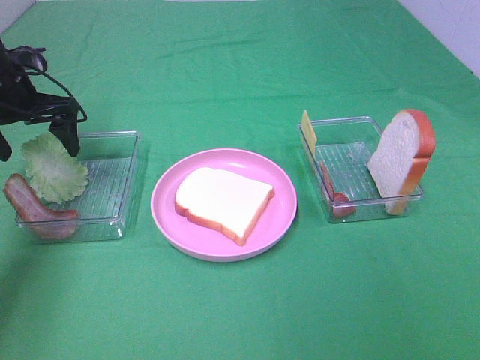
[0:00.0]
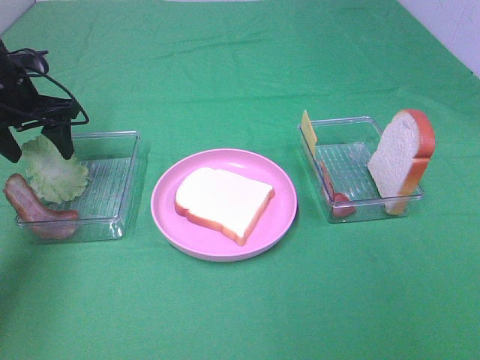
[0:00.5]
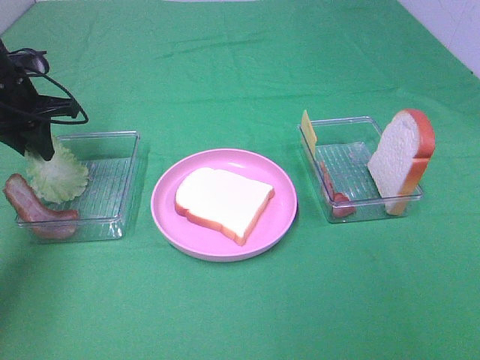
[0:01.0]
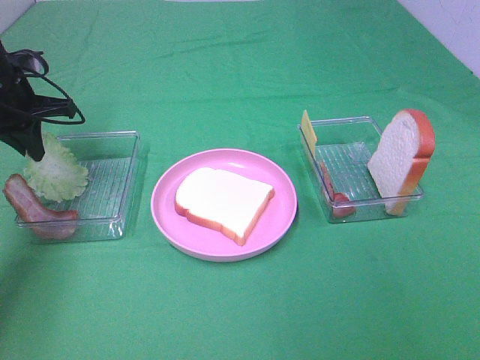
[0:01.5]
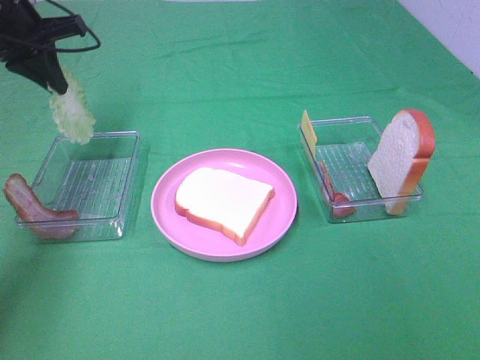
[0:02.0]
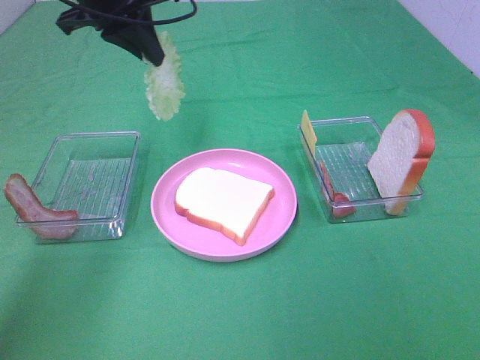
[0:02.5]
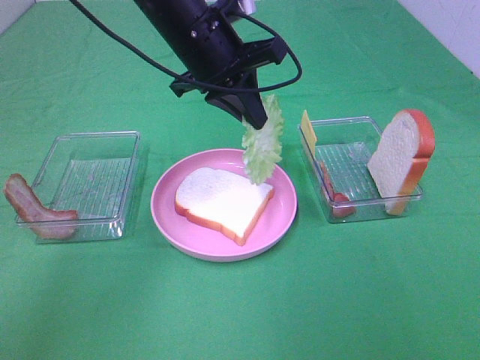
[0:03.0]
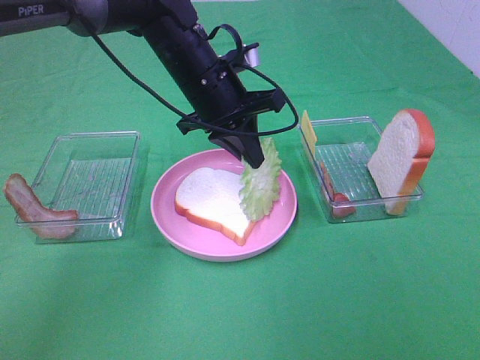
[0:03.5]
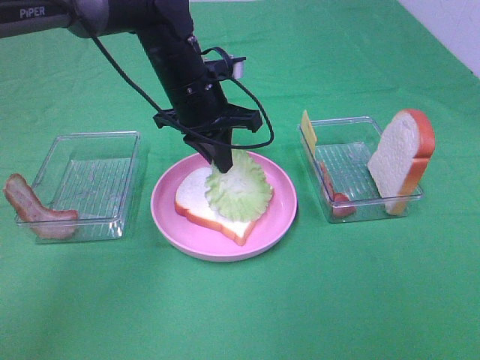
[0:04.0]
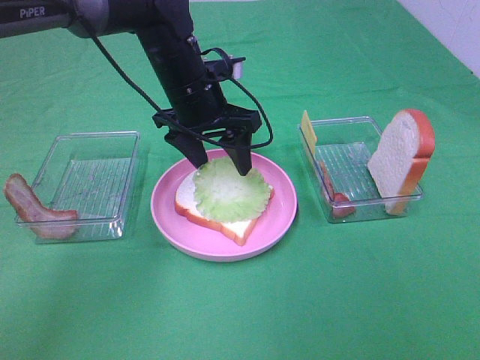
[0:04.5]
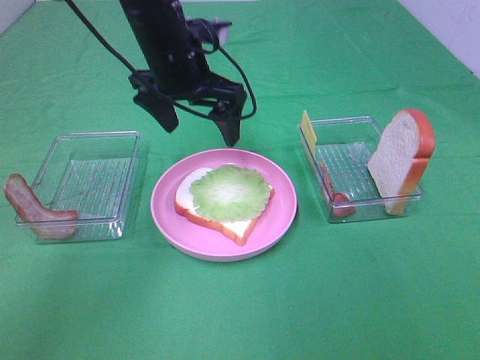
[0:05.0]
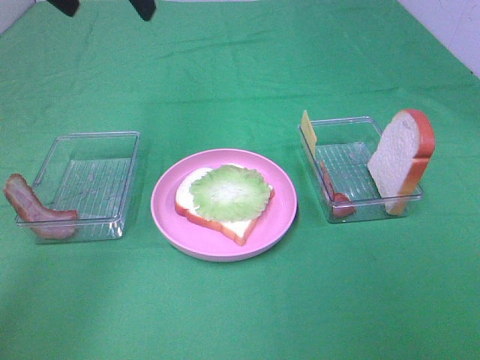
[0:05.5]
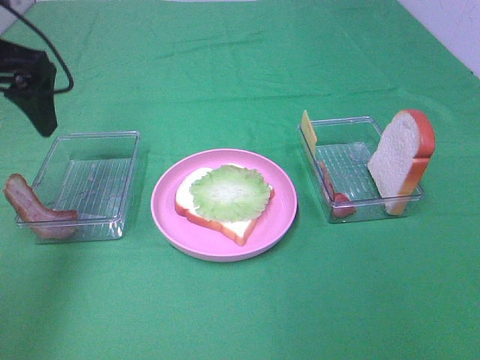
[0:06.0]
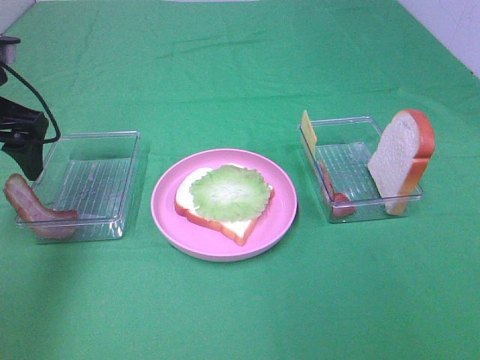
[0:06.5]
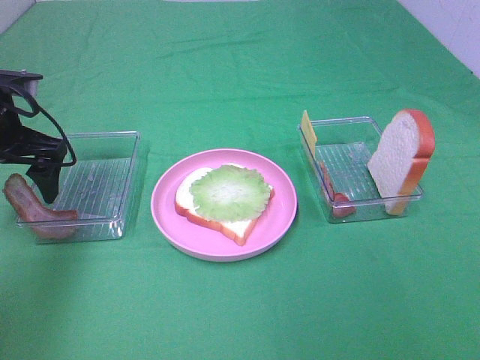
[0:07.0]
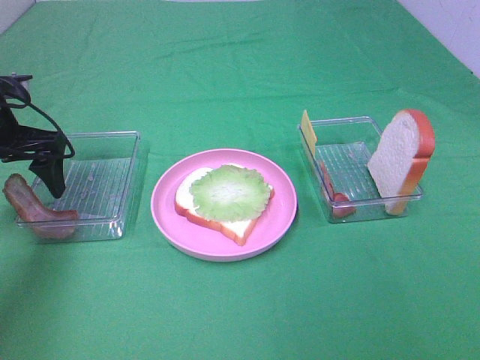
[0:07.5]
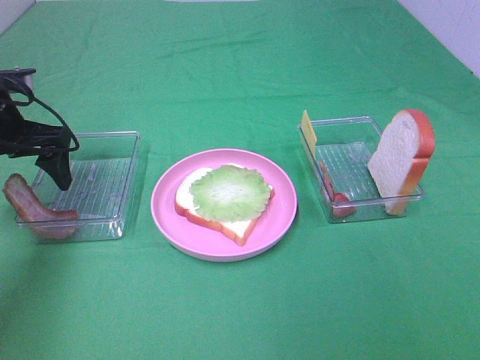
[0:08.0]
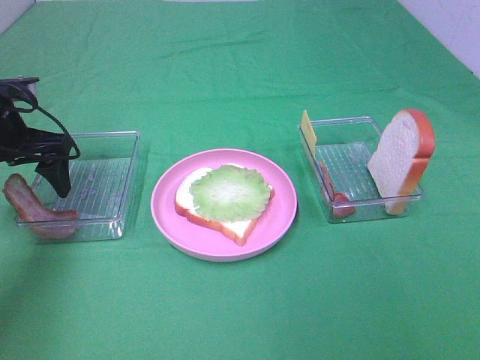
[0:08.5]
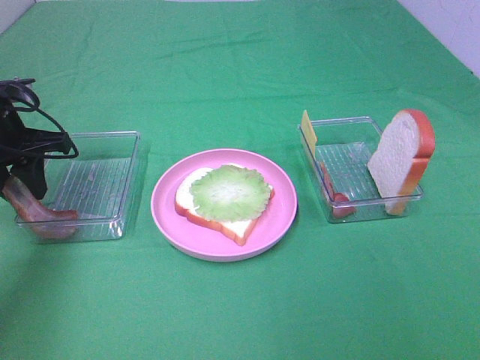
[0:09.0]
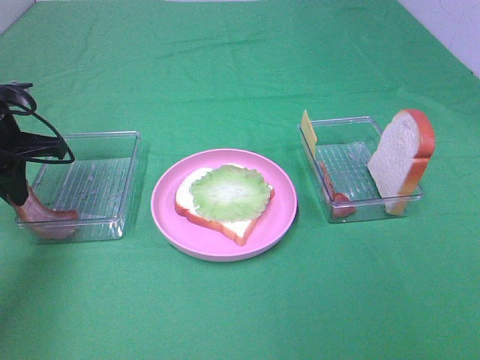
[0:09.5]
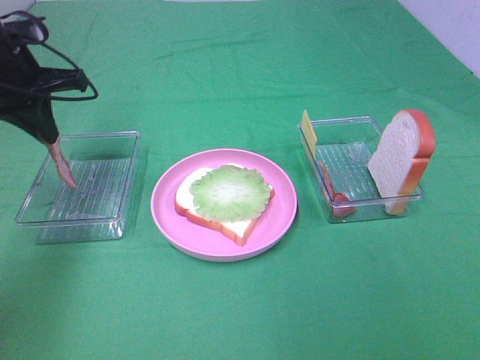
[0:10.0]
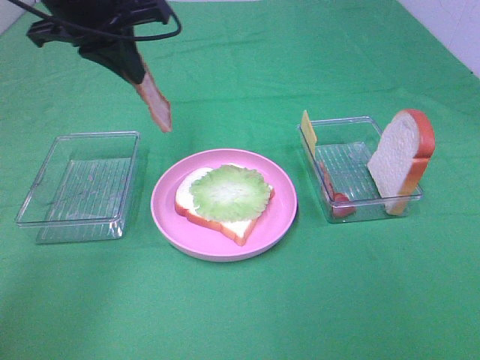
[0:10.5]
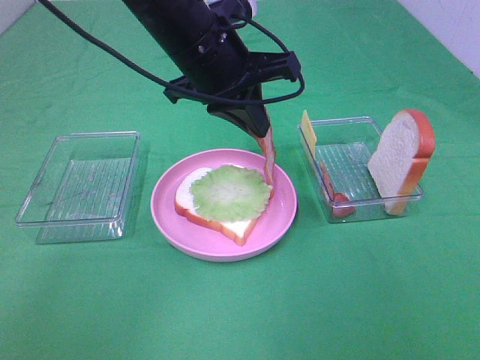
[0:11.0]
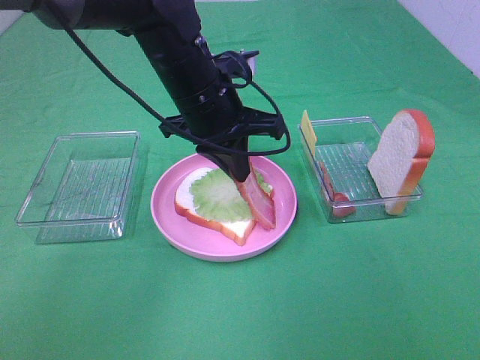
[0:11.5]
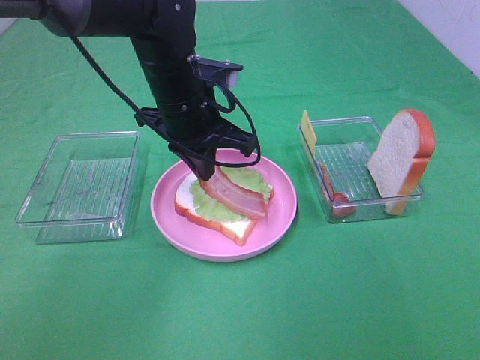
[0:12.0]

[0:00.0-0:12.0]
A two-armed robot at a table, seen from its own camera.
Task of the whole recording: Make sandwiches.
Step, 0:01.5 to 0:04.5: Left hand:place the lettuce slice on the bread slice.
Step, 0:05.0 to 0:09.5: Left hand:grab the bacon.
0:00.0 to 0:02.0: The left gripper travels upward by about 10 cm, and closes.
0:02.0 to 0:04.0: The left gripper heads to the right and downward, covering about 25 cm.
0:04.0 to 0:06.0: The left gripper goes approximately 25 cm to the left, upward and backward, and opens its fingers.
0:06.0 to 0:08.0: The left gripper goes some 10 cm downward.
0:08.0 to 0:10.0: The left gripper is displaced upward by approximately 5 cm, and closes up.
0:10.0 to 0:12.0: The left gripper shifts approximately 20 cm to the right.

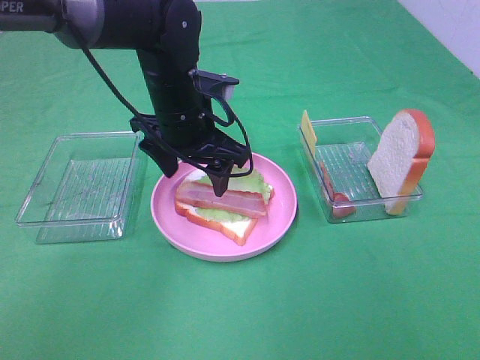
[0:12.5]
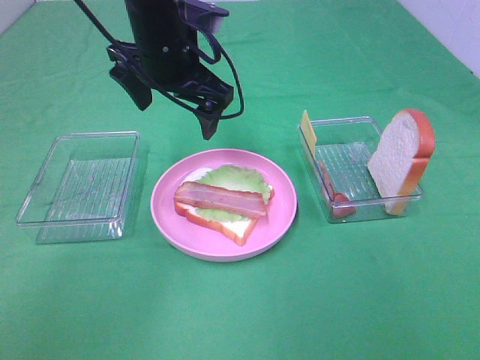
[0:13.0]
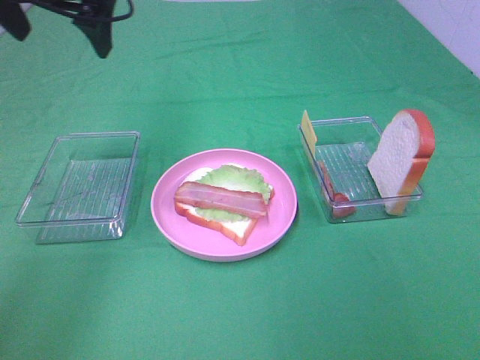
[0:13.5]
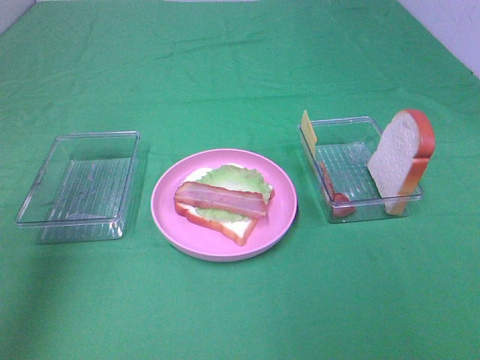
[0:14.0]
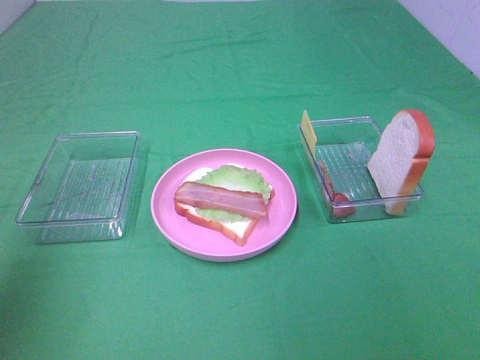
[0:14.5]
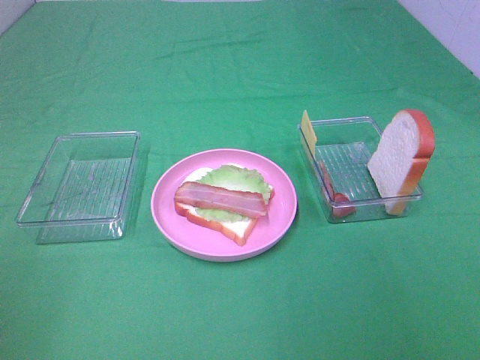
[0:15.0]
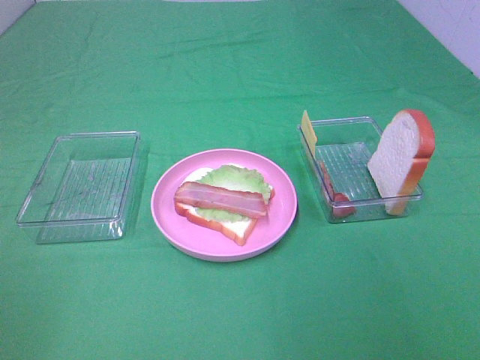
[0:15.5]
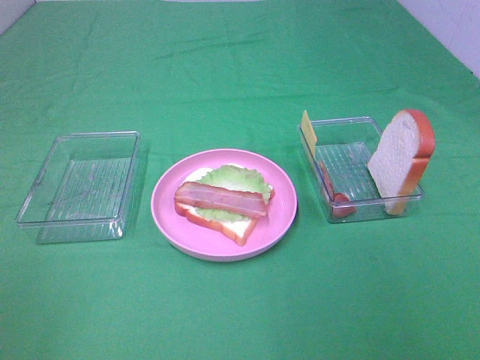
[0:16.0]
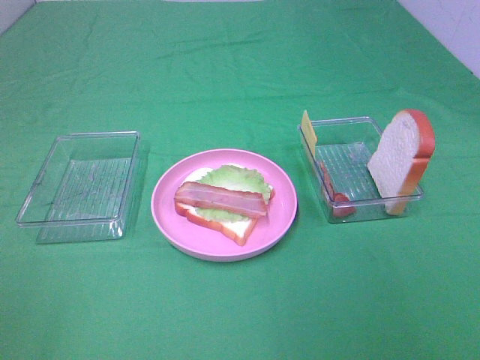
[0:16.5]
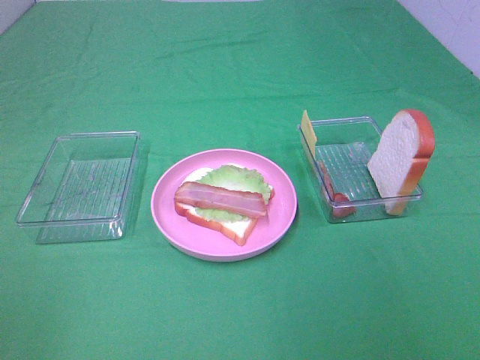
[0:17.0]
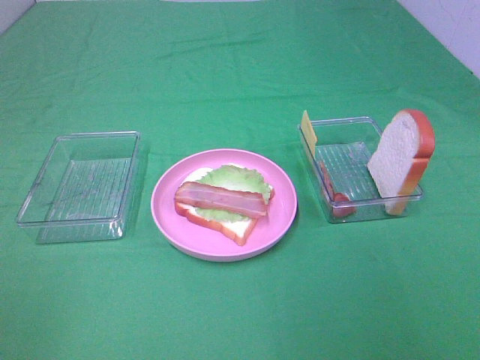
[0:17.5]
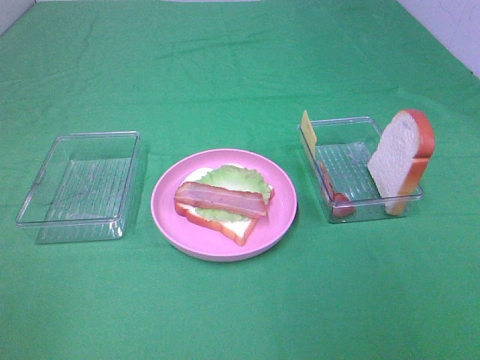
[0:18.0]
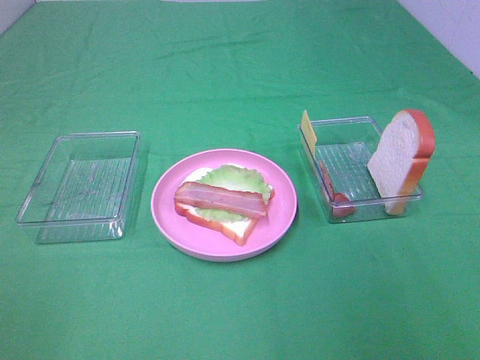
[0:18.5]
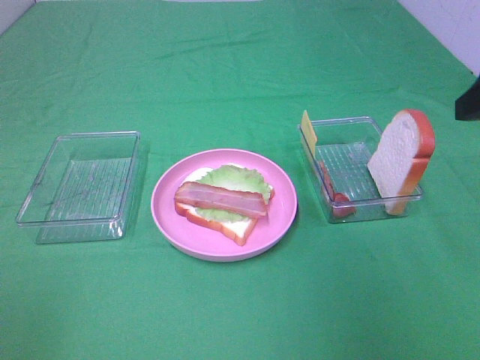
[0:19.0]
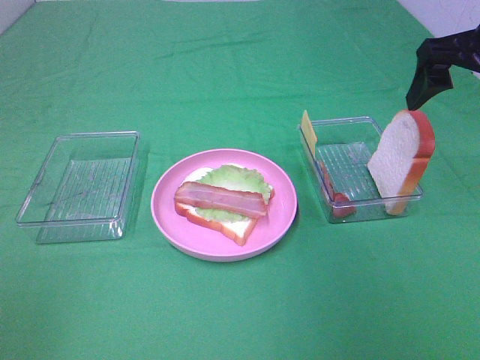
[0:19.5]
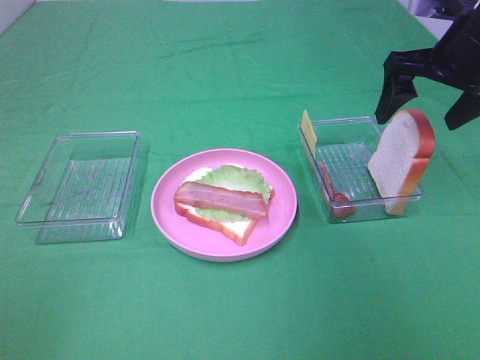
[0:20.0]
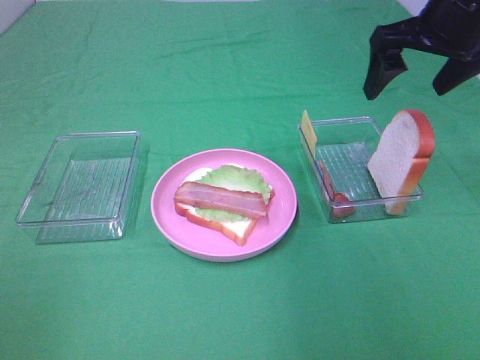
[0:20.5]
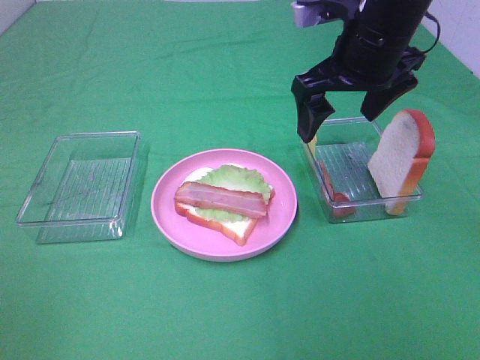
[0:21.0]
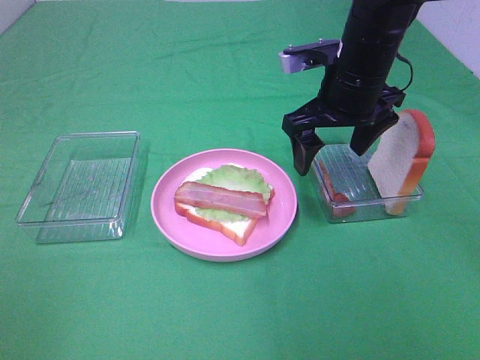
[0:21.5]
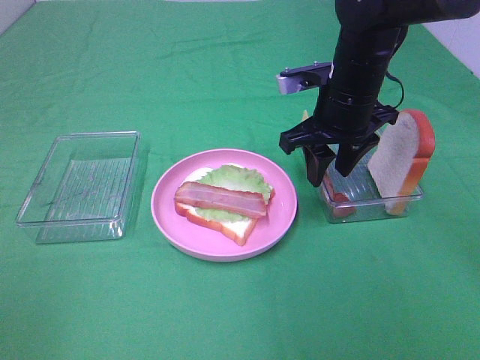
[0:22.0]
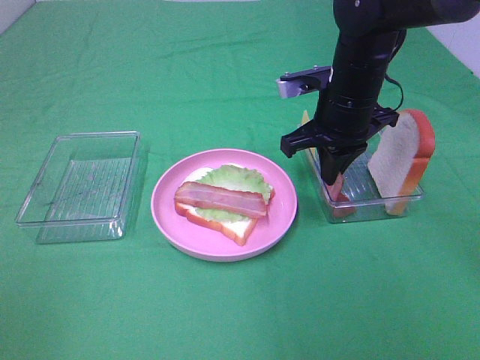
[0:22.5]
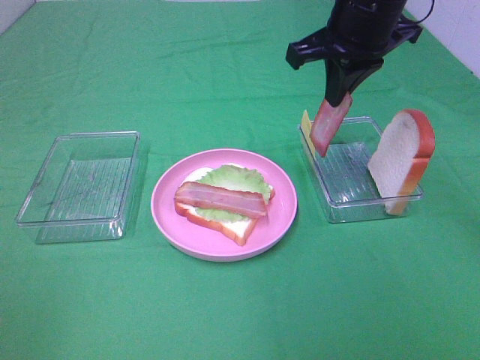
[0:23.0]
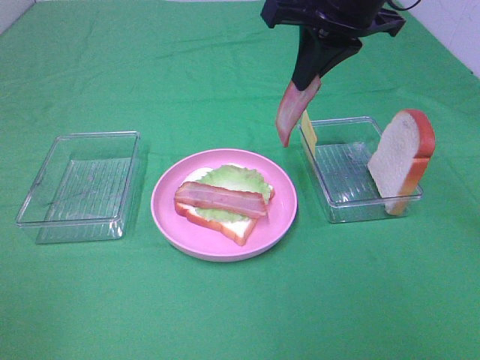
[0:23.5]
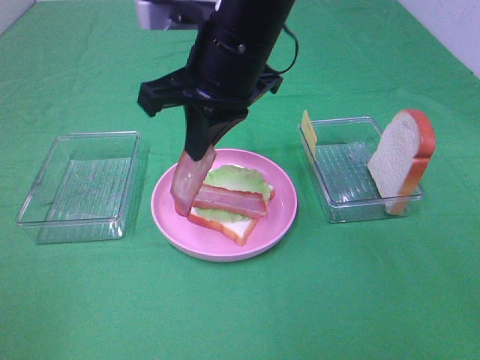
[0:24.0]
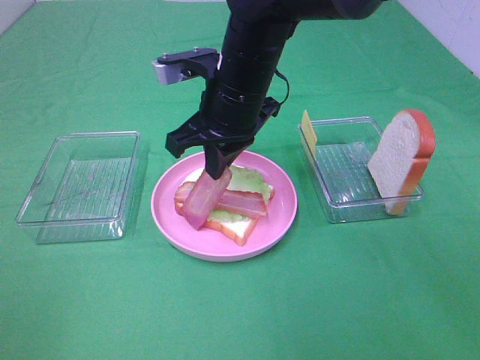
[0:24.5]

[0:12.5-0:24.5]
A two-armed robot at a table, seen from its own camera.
Task of the whole recording: Make sandwiches.
Step, 0:13.0 to 0:22.5: Right hand:grab the bacon.
0:12.5 to 0:14.5: The left gripper shifts approximately 35 cm to the left, backward and upward.
0:14.5 to 0:16.5: The left gripper travels backward by some 15 cm.
0:18.5 to 0:20.5: The right gripper travels forward by roughly 30 cm.
0:20.5 to 0:22.5: The right gripper travels downward and to the left by approximately 15 cm, and closes up.
0:22.5 to 0:24.5: The right gripper goes about 10 cm to the left, and goes upward and returns, roughly 15 cm each way.

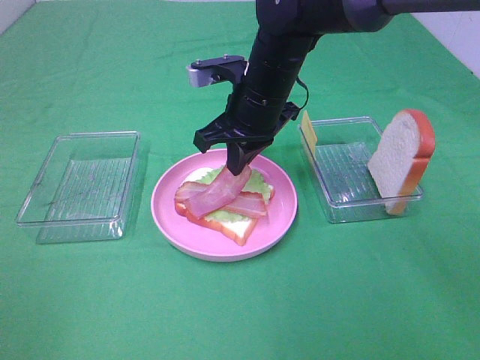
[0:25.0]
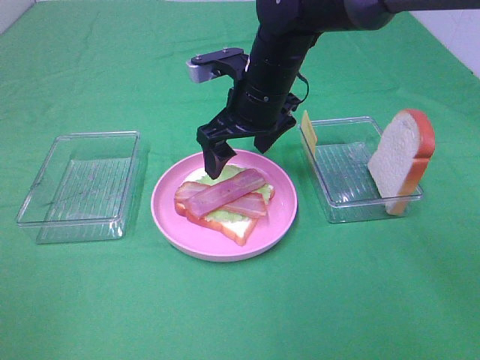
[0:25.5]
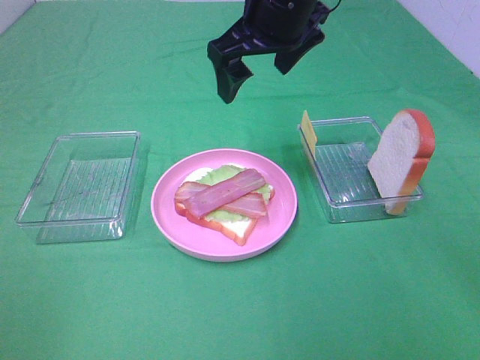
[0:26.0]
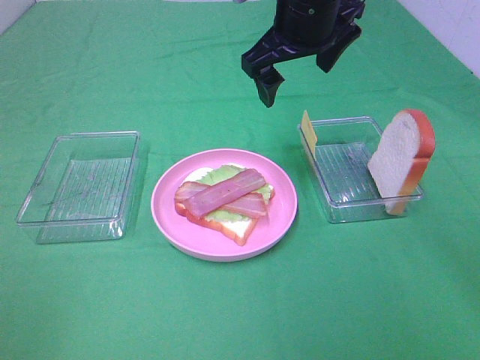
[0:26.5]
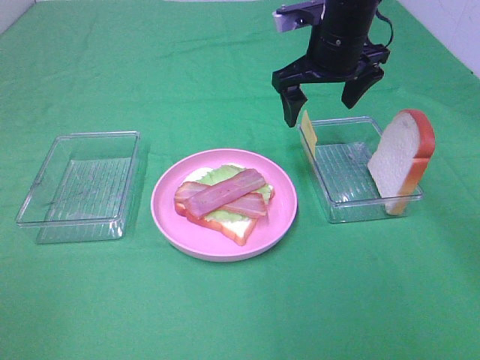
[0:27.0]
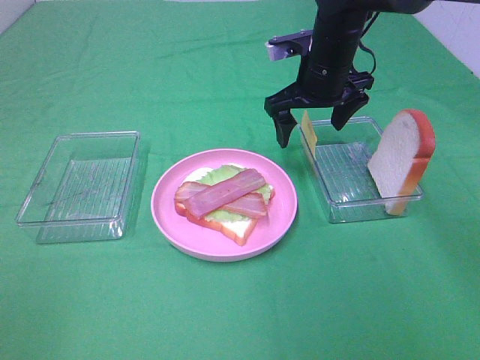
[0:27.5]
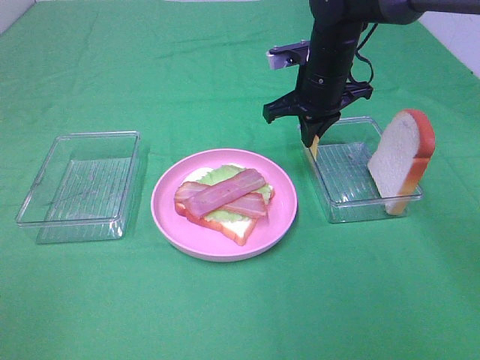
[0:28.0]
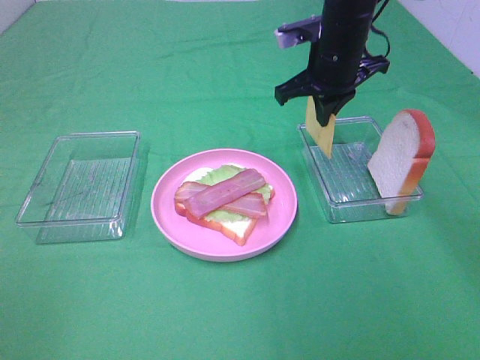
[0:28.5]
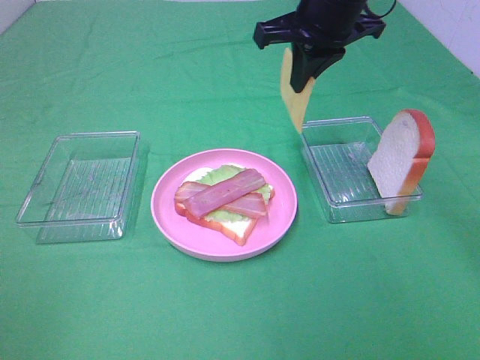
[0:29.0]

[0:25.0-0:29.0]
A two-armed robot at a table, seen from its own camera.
Task of the whole recording: Make sandwiches.
Step, 0:25.5 to 0:28.0: Right hand:grab the cheese slice.
0:25.0 to 0:27.0: The right gripper moves to the right and forward, roughly 10 cm, and opens its fingers.
0:27.0 to 0:29.0: The right gripper goes approximately 5 cm upward, and closes its fingers.
